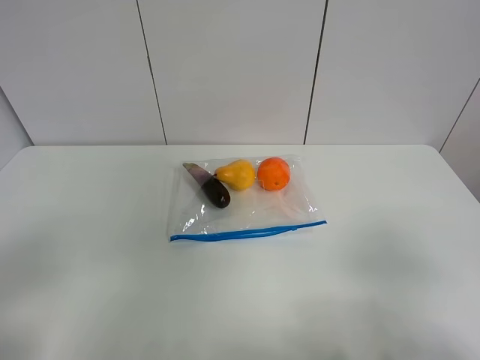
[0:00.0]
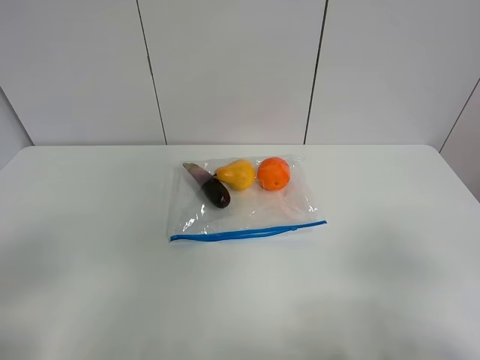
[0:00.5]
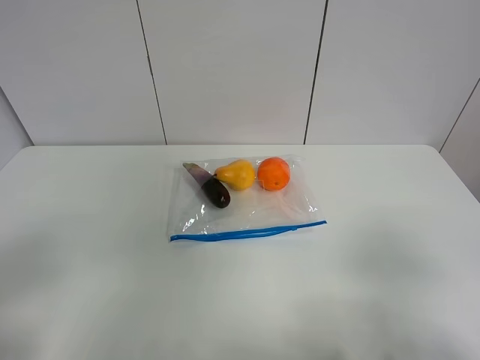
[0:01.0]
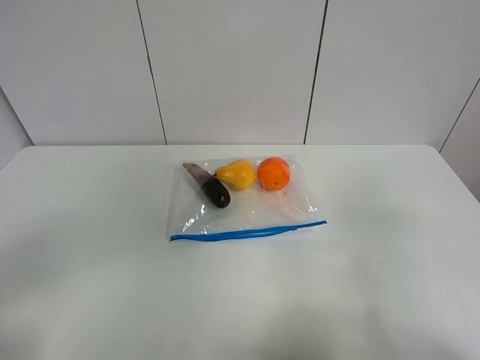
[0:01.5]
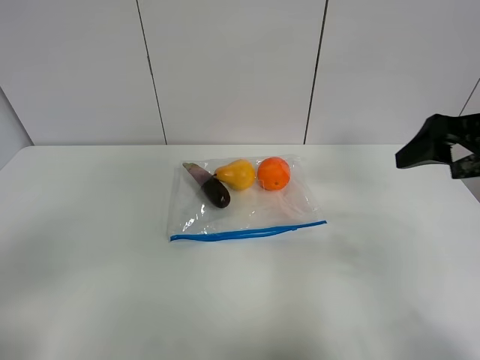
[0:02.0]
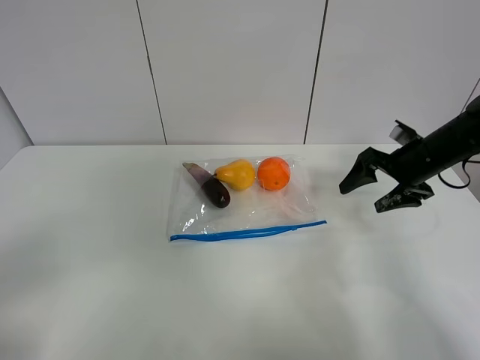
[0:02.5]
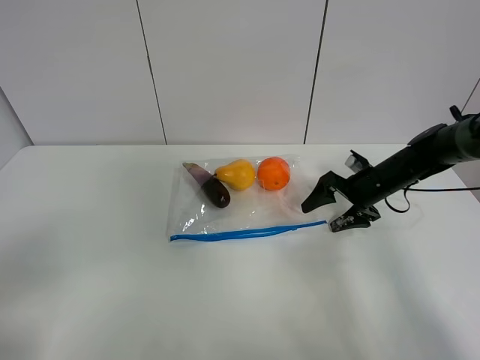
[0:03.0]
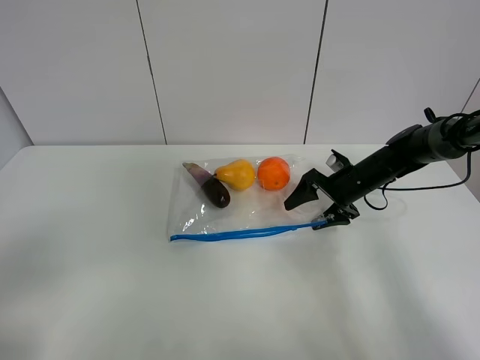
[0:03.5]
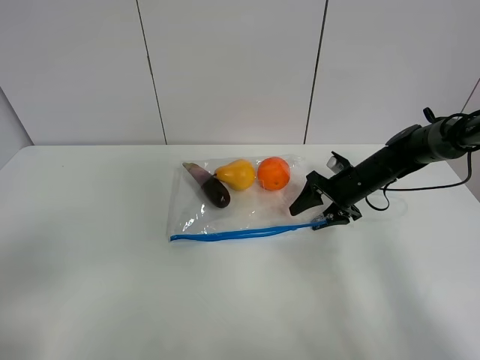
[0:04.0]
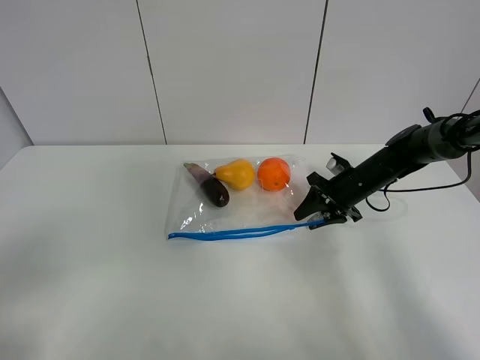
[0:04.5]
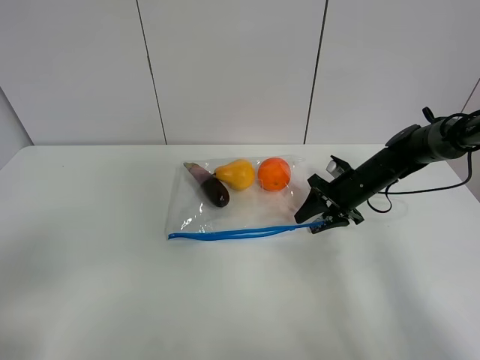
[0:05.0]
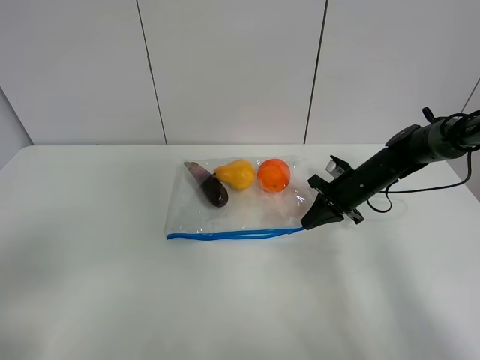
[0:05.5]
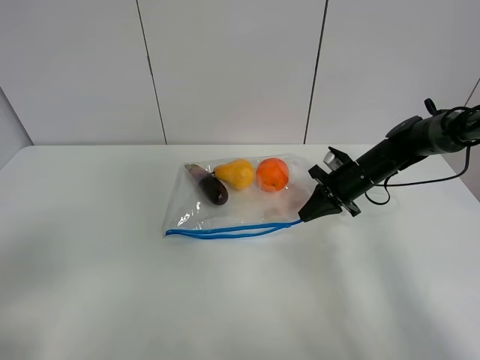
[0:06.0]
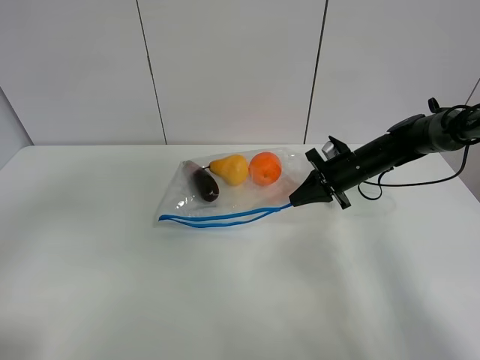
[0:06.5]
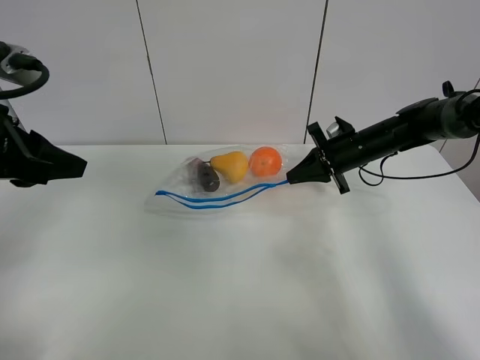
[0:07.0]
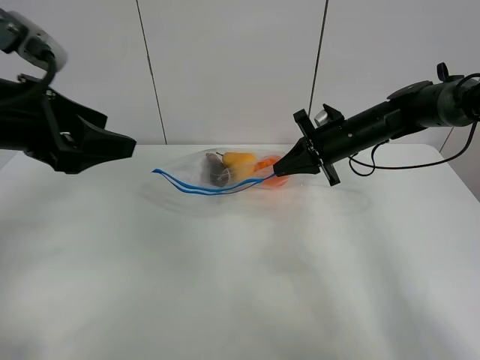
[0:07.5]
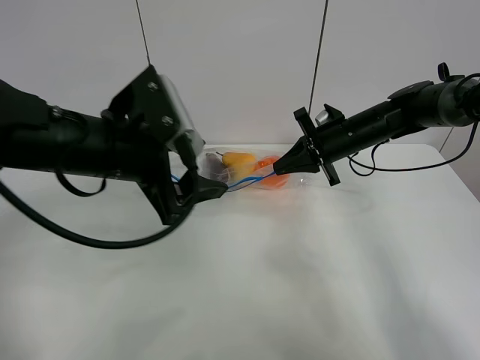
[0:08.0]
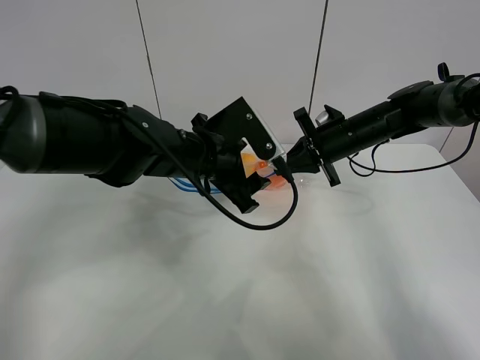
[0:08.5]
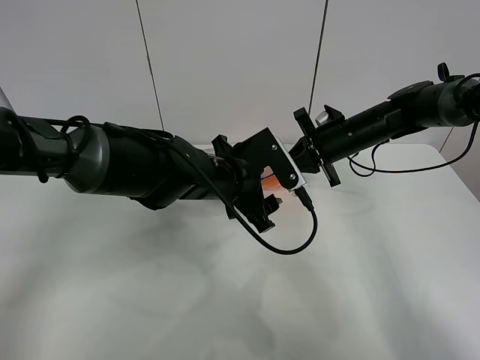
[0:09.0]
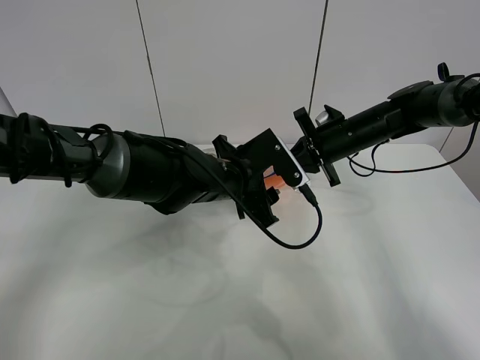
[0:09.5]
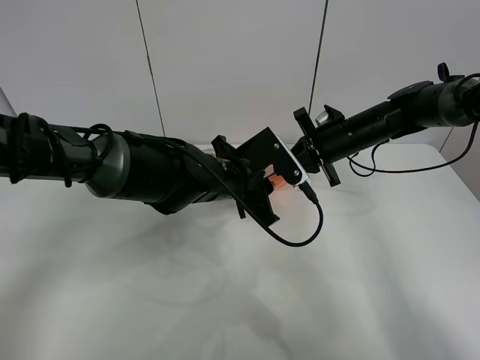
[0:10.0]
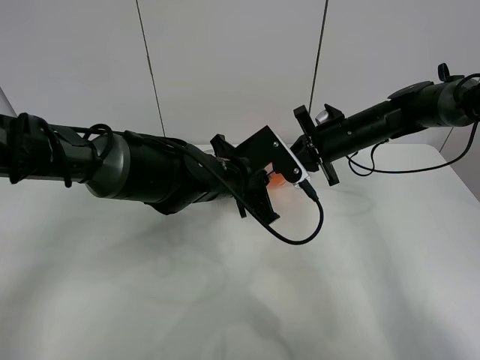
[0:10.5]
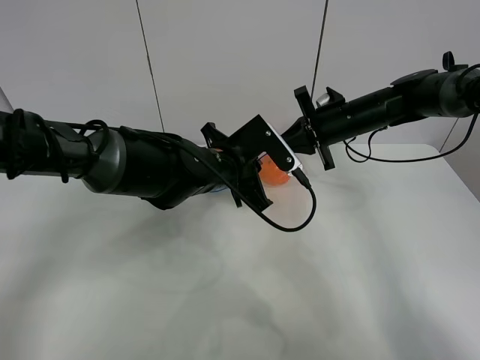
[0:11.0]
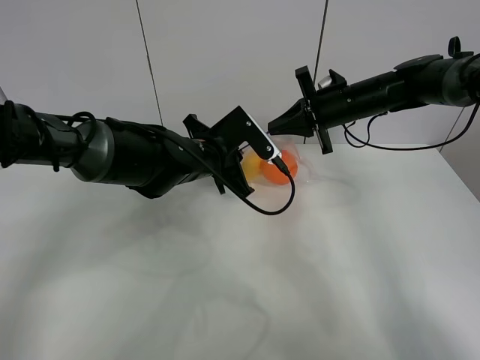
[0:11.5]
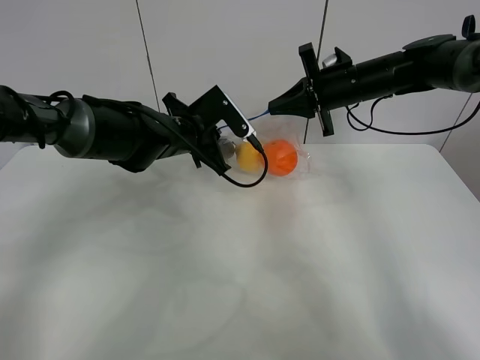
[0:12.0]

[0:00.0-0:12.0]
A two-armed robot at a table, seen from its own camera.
Step, 0:00.0 to 0:05.0: Grasp the fruit bag with right gripper.
Step, 0:05.5 to 0:07.0: Lift the fruit bag with your right gripper.
0:00.0 to 0:02.0: The right gripper shifts about 25 cm forward, and opens.
0:02.0 to 0:04.0: The right gripper shifts roughly 25 cm downward and forward.
0:04.0 to 0:06.0: The right gripper closes its fingers.
0:06.0 to 0:08.0: The left gripper goes about 30 cm forward and to the right, and opens its fingers; the right gripper heads upward, covering approximately 10 cm.
0:08.0 to 0:10.0: The left gripper heads to the right, downward and forward, covering some 15 cm, and closes up.
0:10.0 to 0:12.0: The left gripper is displaced to the left and forward by about 10 cm, and closes its fingers; the right gripper travels upward by some 10 cm.

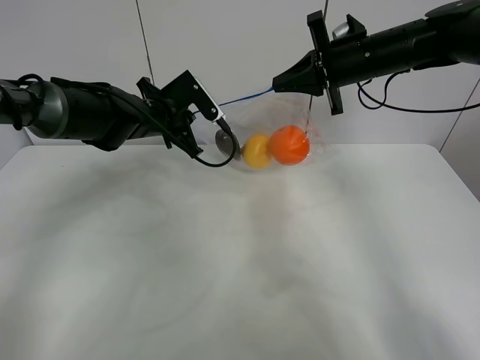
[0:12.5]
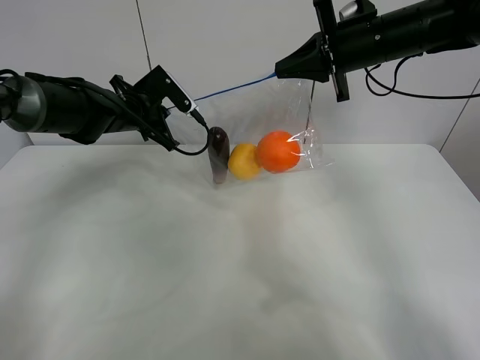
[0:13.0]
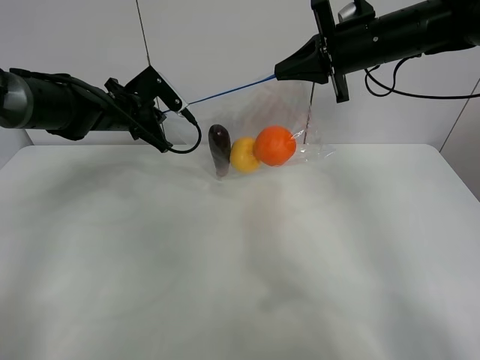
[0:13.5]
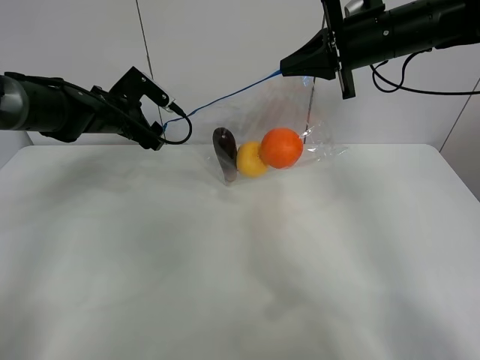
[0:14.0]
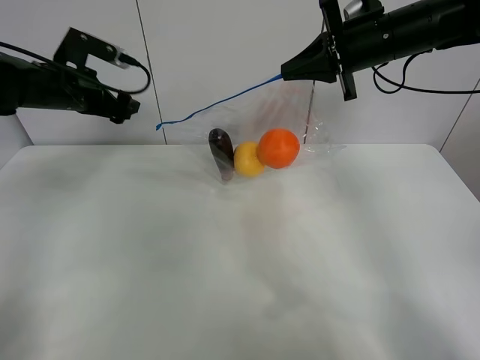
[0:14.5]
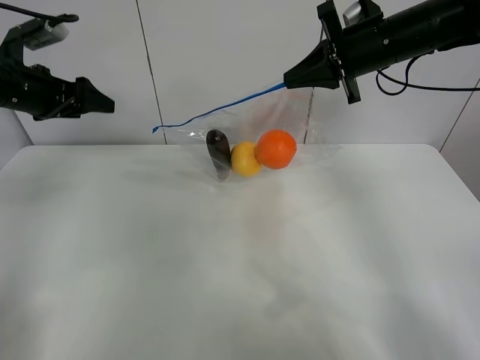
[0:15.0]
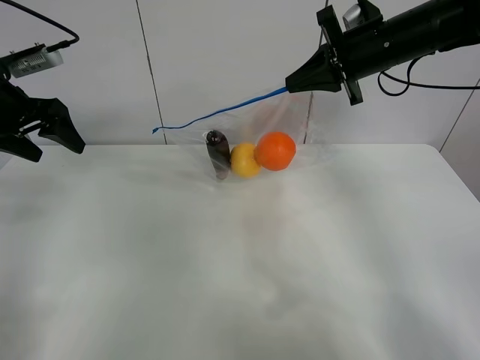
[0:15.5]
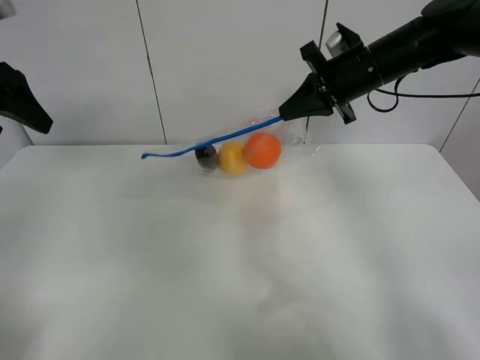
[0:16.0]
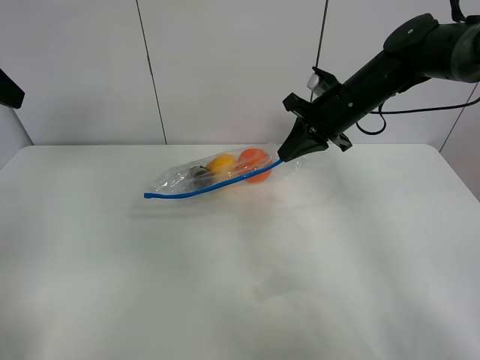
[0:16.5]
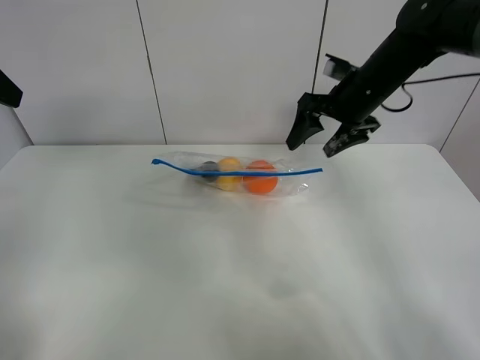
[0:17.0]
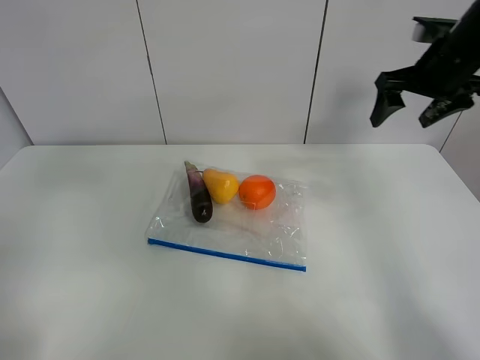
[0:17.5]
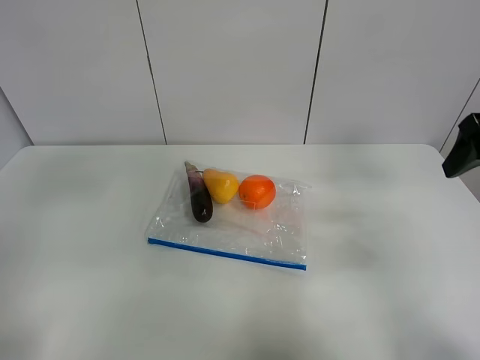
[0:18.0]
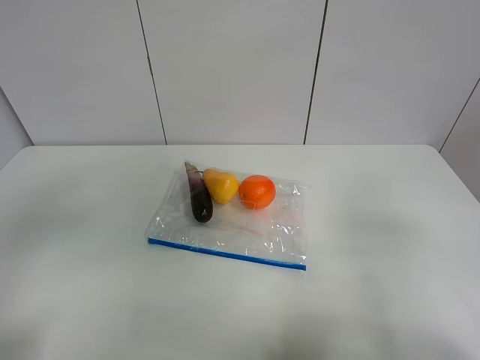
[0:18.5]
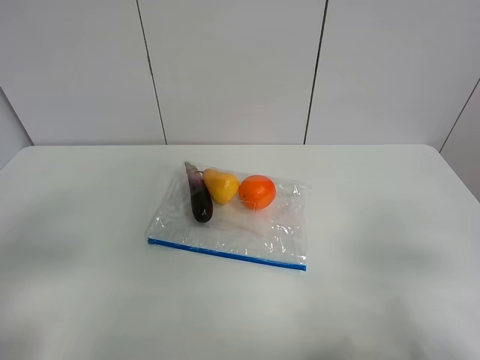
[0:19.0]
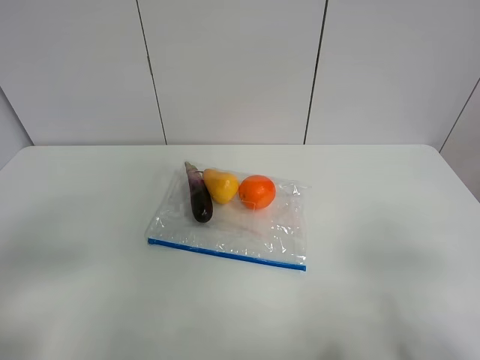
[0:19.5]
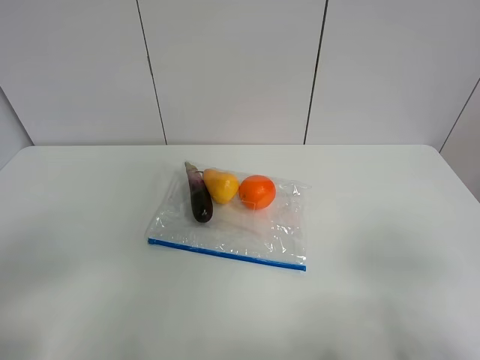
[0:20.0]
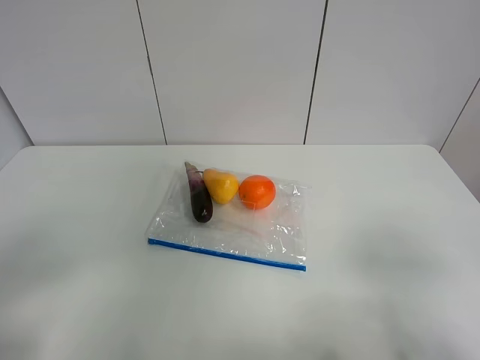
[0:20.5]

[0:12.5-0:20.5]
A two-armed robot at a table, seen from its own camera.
Step, 0:14.0 to 0:17.0: Place the fruit bag with right gripper.
0:12.5 to 0:14.5: The left gripper goes roughly 15 cm to the left and upward, and opens up.
0:14.5 to 0:16.5: The right gripper heads downward, covering about 10 cm. Meanwhile the left gripper is displaced backward and upward by approximately 20 cm.
0:16.5 to 0:18.5: The left gripper travels backward and downward by some 20 cm; the right gripper is displaced backward by some 35 cm, and opens.
0:18.5 to 0:20.5: The grippers both shift backward by approximately 5 cm.

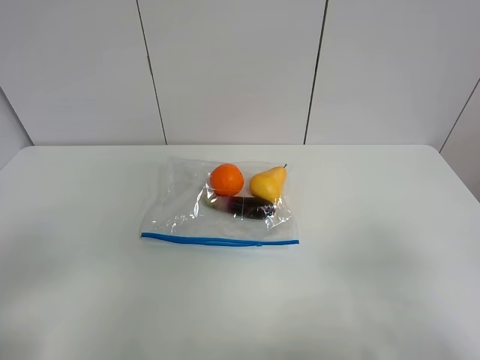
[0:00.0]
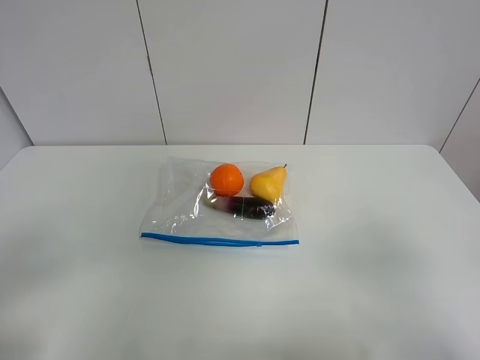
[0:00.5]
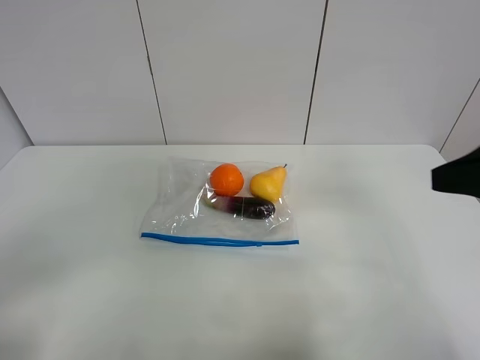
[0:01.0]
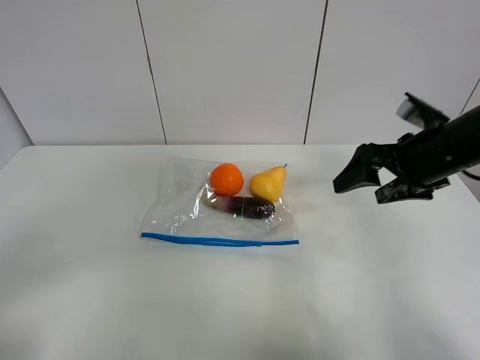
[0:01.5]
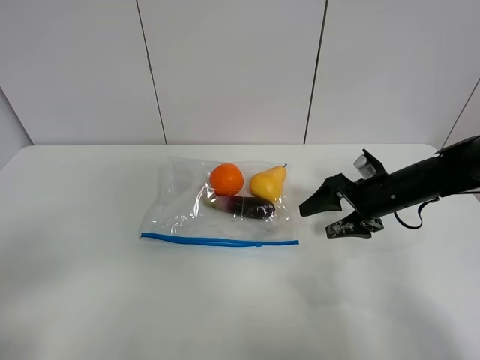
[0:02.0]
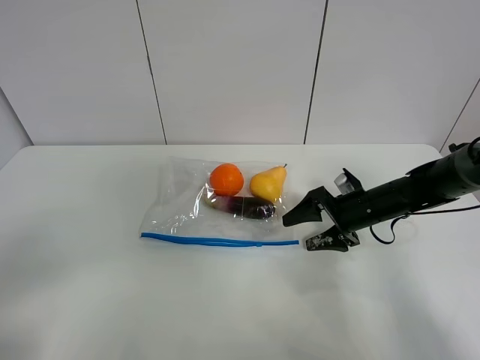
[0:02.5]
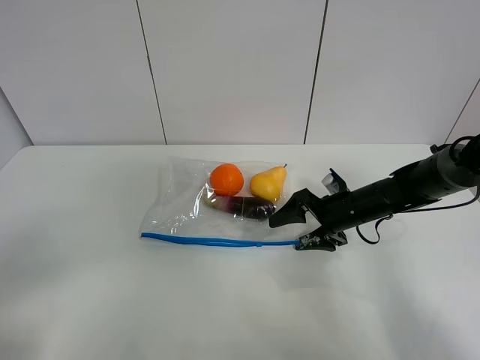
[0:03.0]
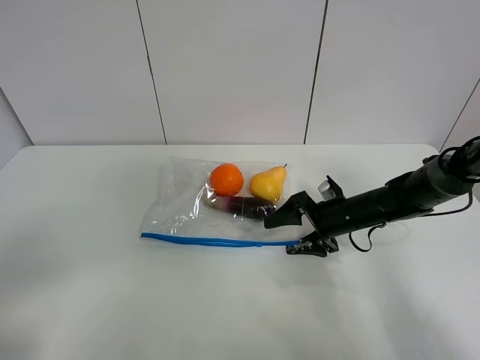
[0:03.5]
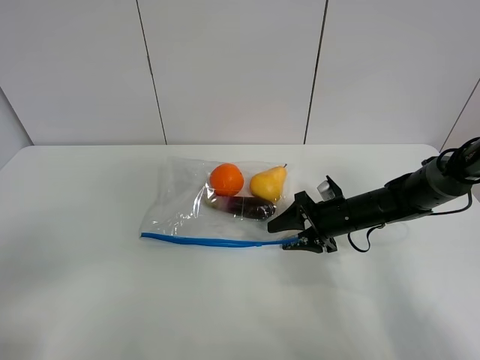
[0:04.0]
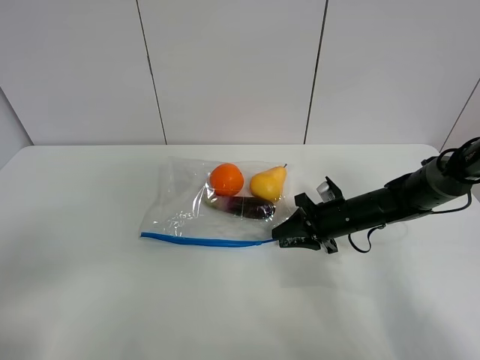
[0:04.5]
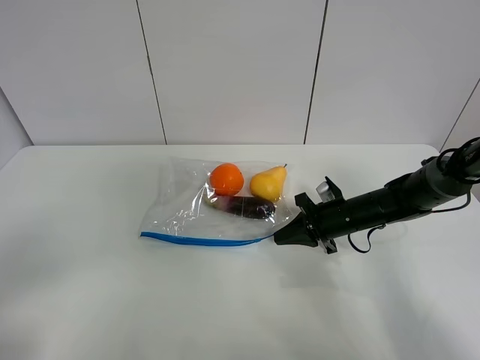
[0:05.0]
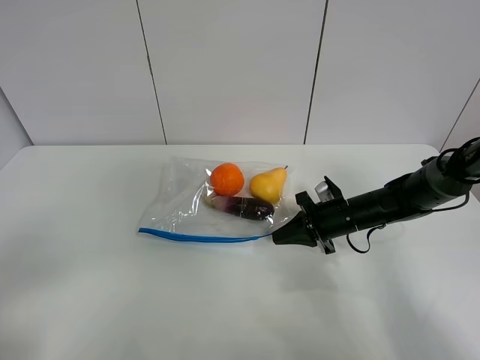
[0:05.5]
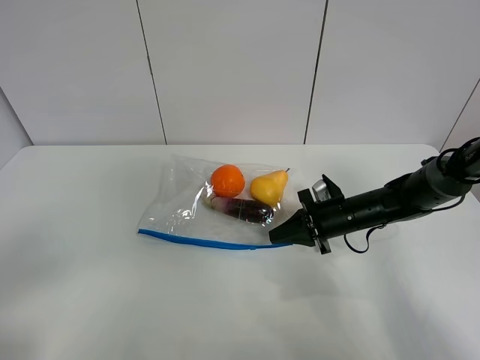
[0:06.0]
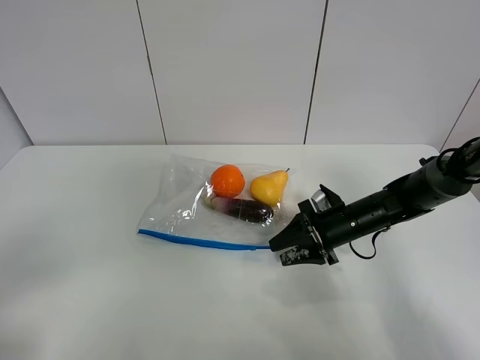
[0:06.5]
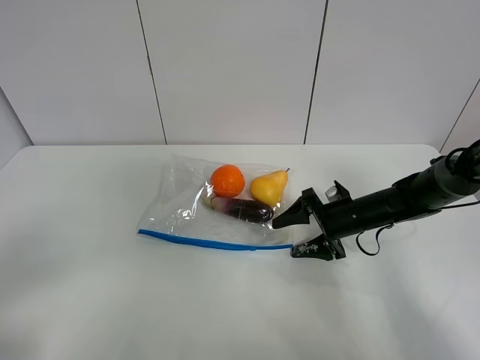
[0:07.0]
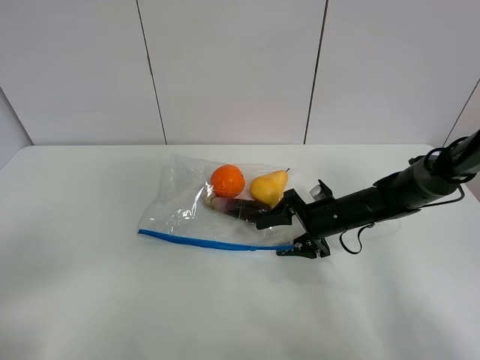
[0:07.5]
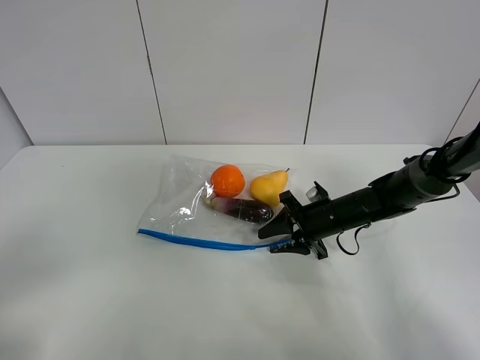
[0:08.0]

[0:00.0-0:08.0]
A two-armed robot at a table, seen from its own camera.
0:00.0 to 0:02.0: The right gripper moves forward and downward, roughly 35 cm.
0:02.0 to 0:04.0: The right gripper shifts roughly 5 cm downward.
0:04.0 to 0:06.0: The right gripper closes its fingers.
0:06.0 to 0:08.0: The right gripper opens its fingers.
